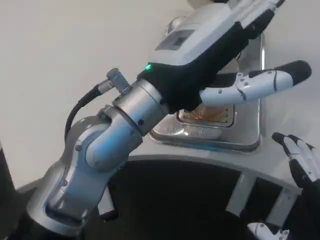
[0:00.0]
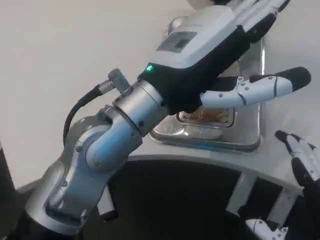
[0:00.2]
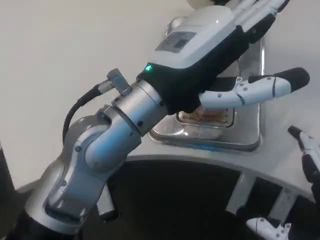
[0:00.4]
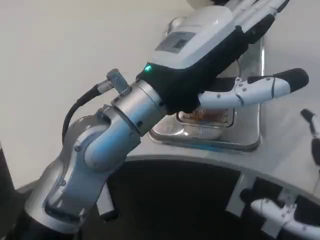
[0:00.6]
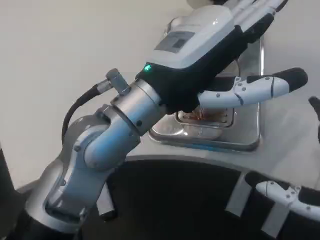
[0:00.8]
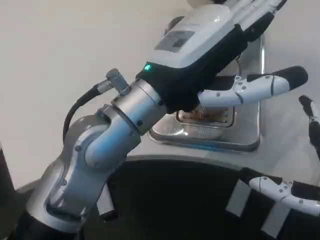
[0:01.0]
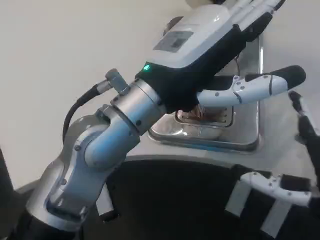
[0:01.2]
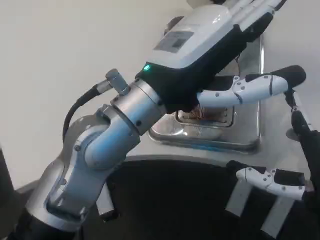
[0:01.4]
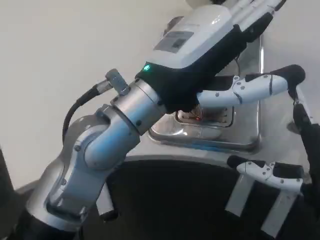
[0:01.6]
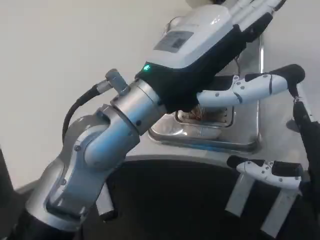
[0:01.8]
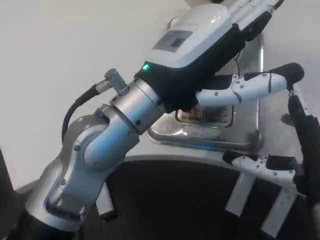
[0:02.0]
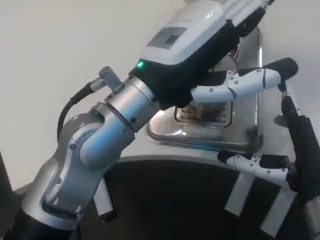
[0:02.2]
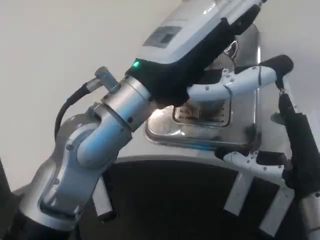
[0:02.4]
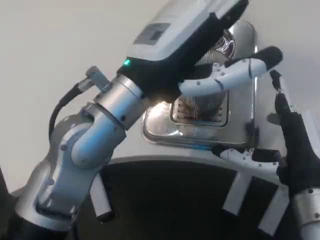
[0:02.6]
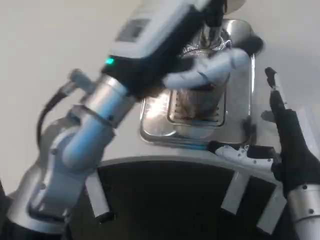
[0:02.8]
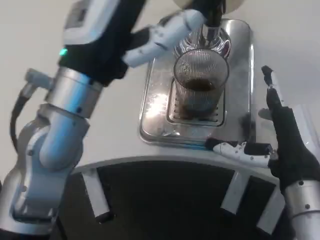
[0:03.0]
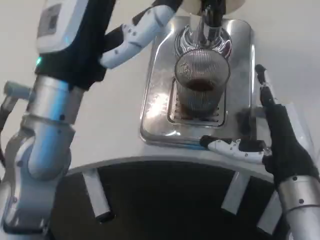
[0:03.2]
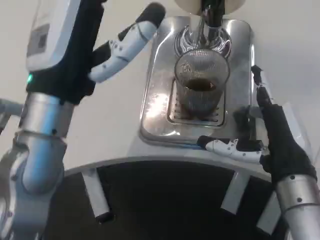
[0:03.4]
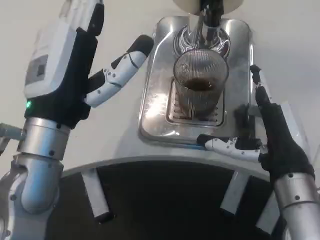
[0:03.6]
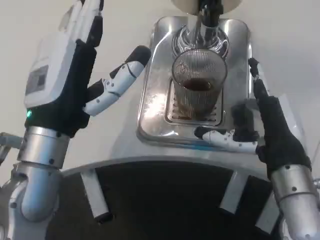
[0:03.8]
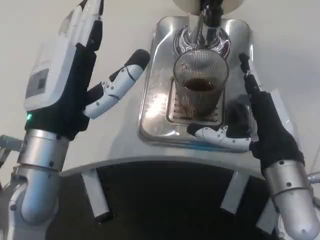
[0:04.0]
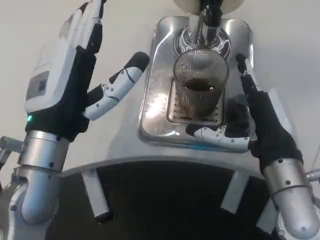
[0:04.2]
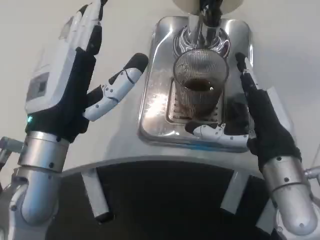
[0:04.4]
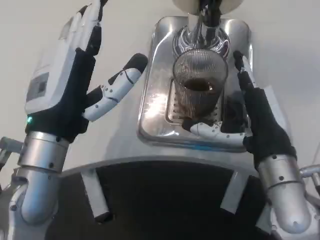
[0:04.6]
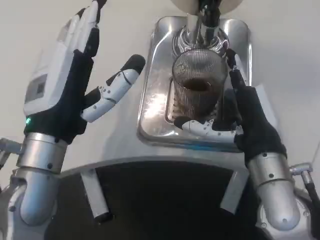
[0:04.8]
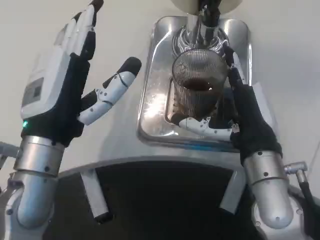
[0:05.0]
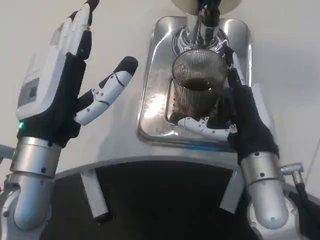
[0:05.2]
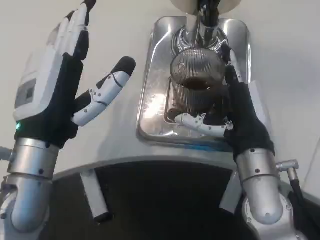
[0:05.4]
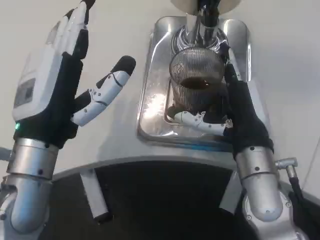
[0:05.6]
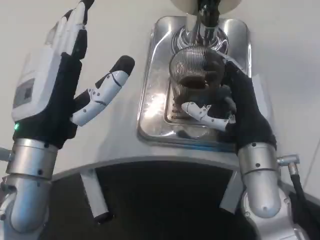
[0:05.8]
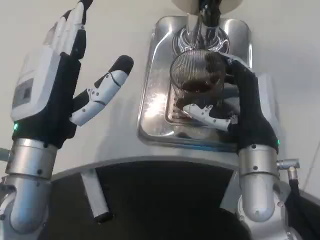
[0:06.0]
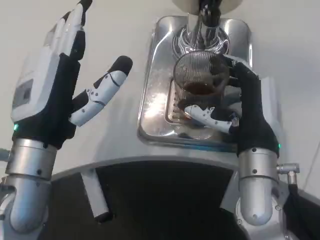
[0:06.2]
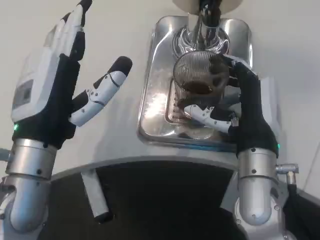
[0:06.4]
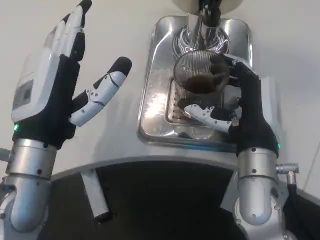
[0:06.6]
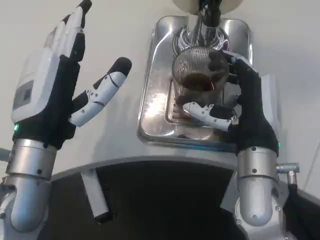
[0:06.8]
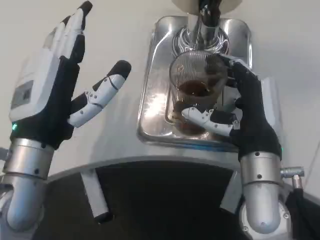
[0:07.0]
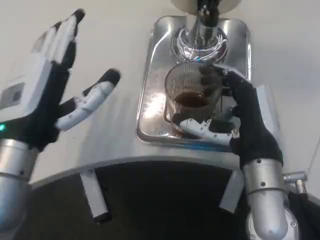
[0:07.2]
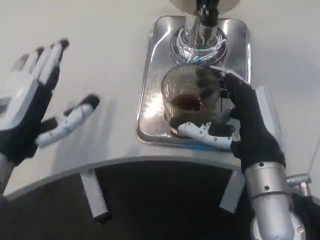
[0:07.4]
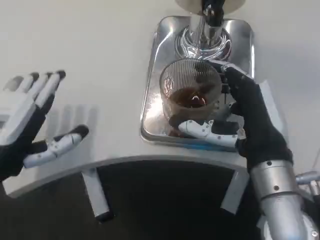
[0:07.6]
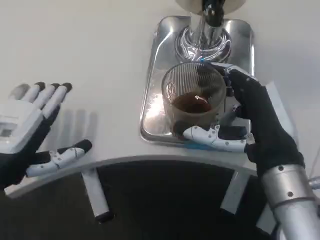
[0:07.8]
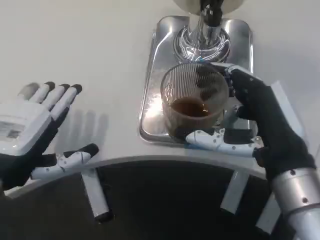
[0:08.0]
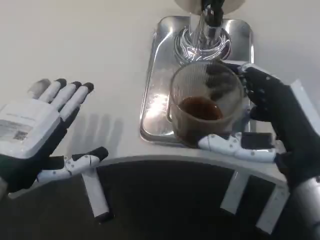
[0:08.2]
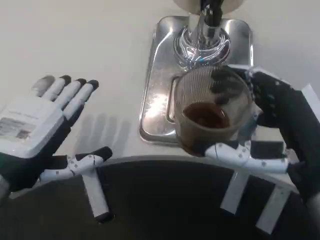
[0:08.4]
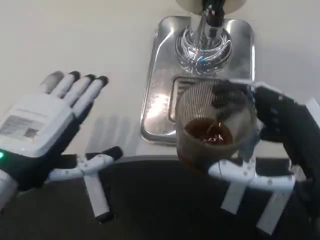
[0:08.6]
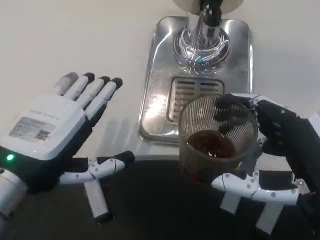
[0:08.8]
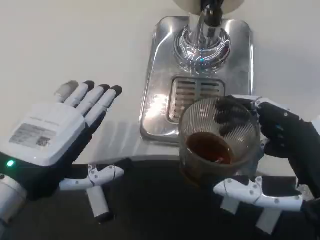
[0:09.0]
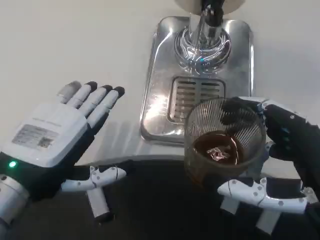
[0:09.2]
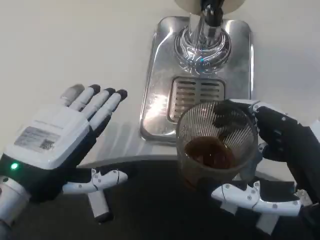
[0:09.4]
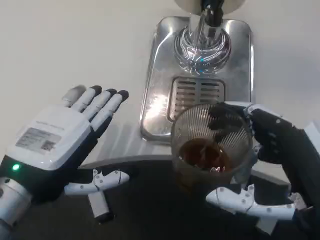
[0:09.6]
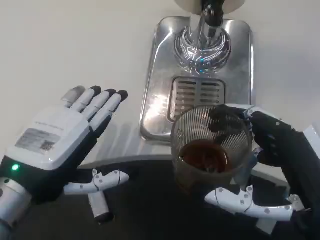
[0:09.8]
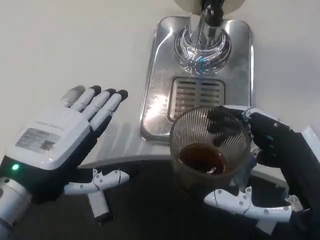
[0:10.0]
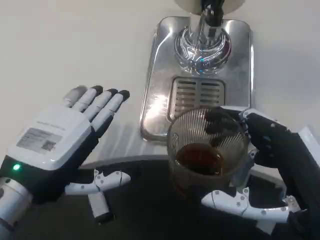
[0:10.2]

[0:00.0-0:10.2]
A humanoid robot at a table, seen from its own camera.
Task of the whole recording: Grasp the cup under the faucet to collect the drink, then remove the cup.
0:00.0 to 0:01.4: The right hand moves forward, some 10 cm.
0:01.4 to 0:03.0: The right hand heads forward, covering approximately 5 cm.
0:03.0 to 0:04.4: The left hand travels downward by about 5 cm.
0:07.2 to 0:08.8: The right hand shifts about 15 cm backward and to the right.

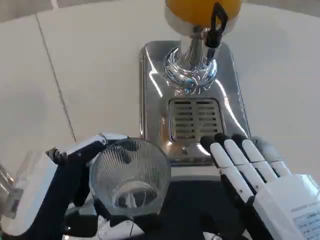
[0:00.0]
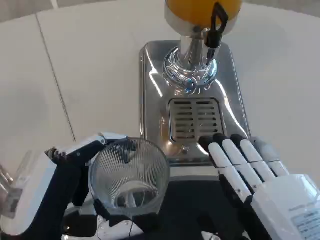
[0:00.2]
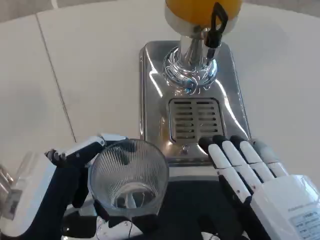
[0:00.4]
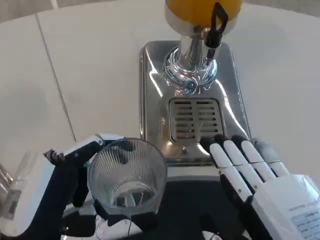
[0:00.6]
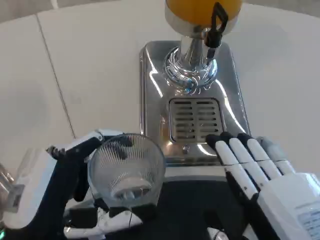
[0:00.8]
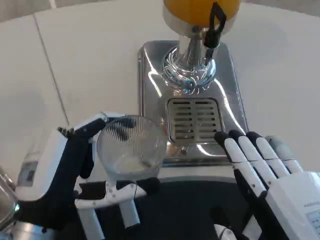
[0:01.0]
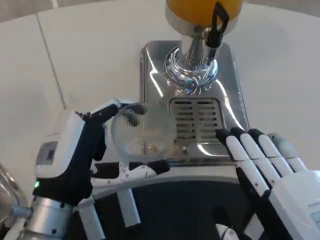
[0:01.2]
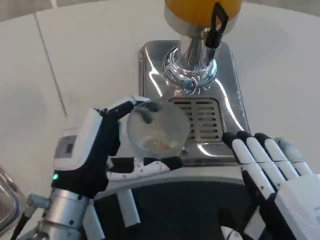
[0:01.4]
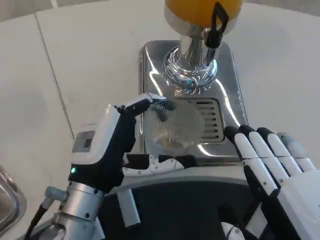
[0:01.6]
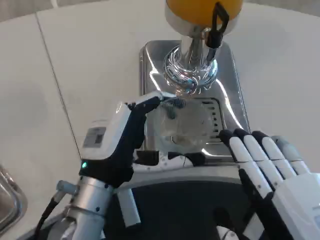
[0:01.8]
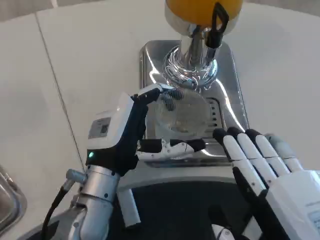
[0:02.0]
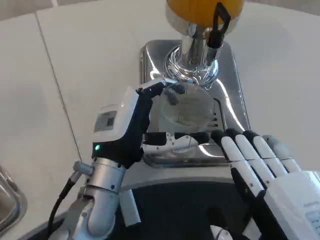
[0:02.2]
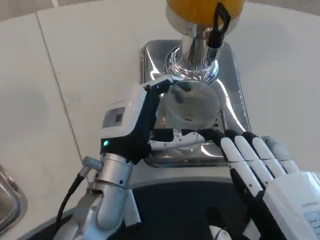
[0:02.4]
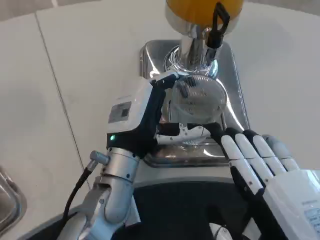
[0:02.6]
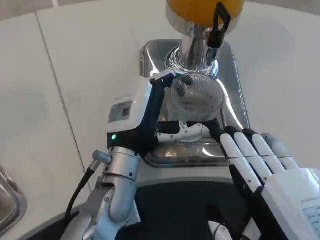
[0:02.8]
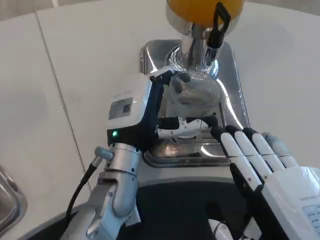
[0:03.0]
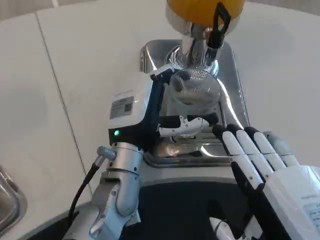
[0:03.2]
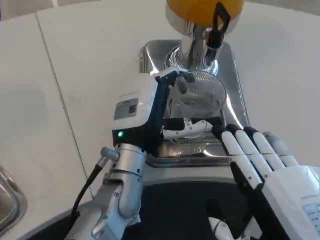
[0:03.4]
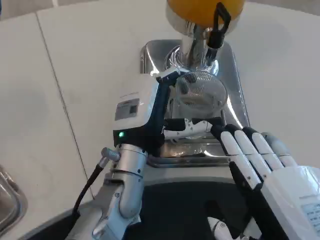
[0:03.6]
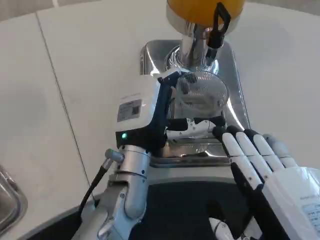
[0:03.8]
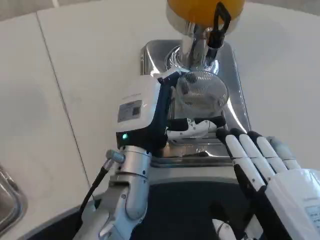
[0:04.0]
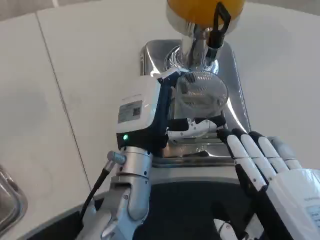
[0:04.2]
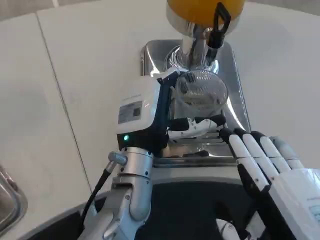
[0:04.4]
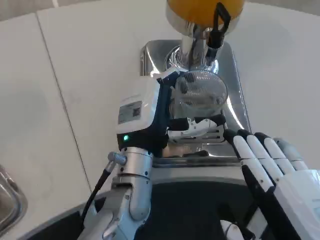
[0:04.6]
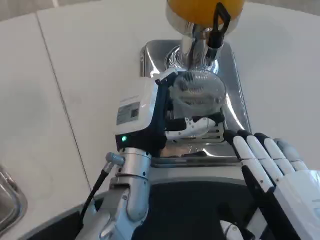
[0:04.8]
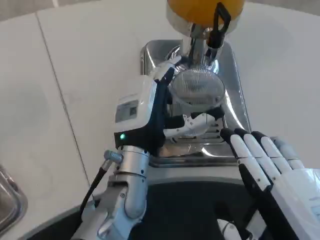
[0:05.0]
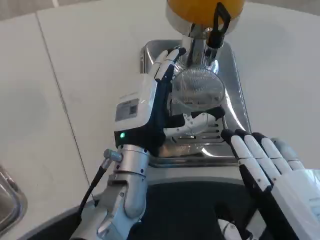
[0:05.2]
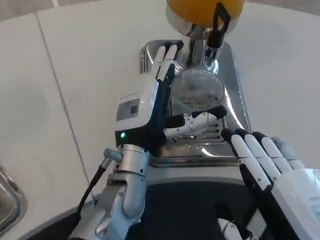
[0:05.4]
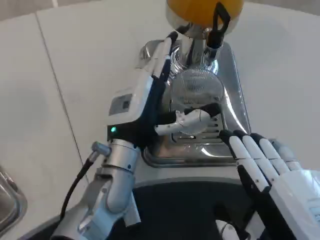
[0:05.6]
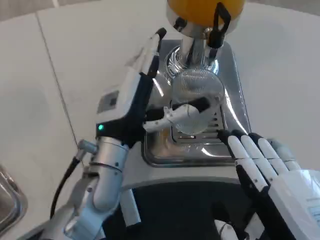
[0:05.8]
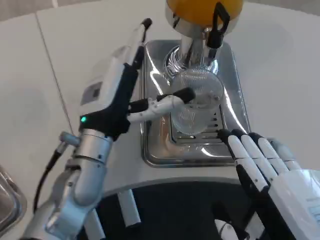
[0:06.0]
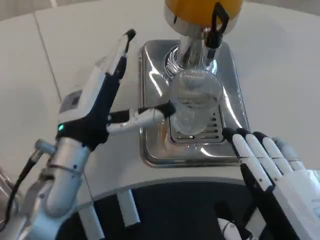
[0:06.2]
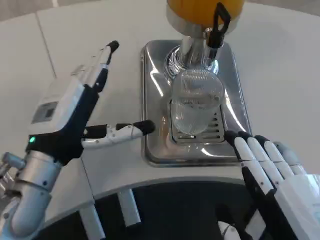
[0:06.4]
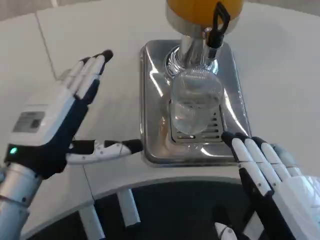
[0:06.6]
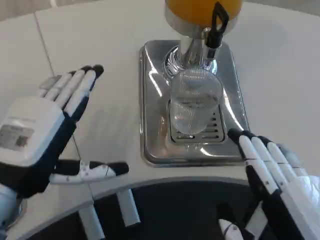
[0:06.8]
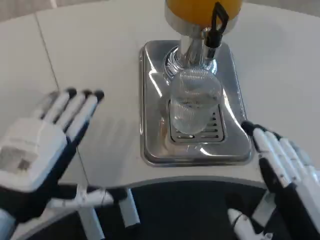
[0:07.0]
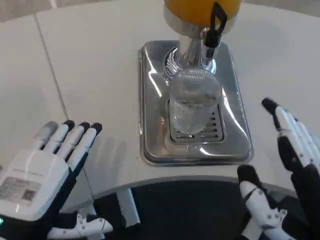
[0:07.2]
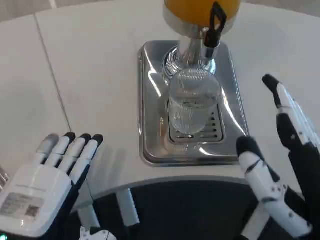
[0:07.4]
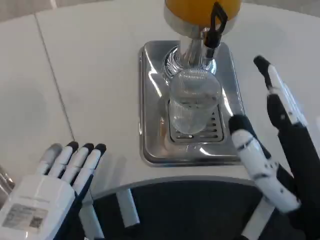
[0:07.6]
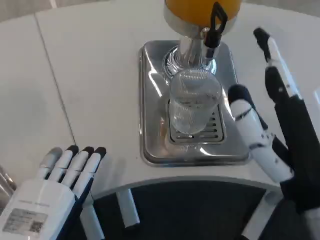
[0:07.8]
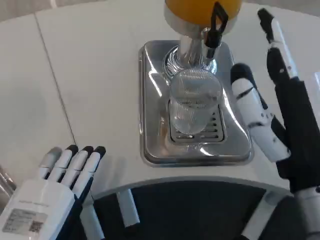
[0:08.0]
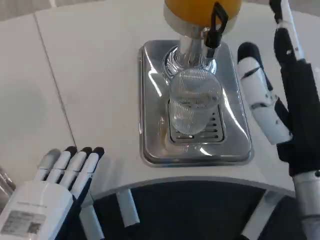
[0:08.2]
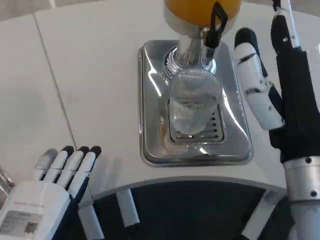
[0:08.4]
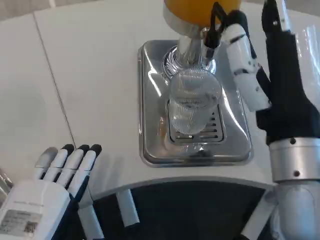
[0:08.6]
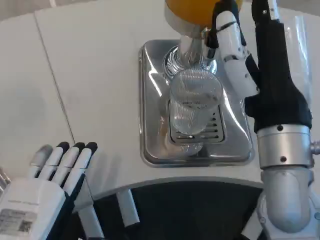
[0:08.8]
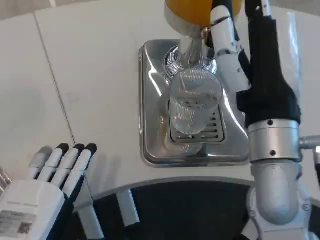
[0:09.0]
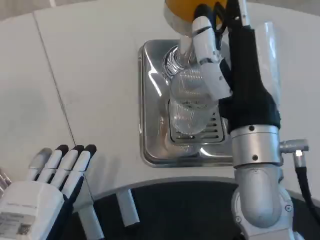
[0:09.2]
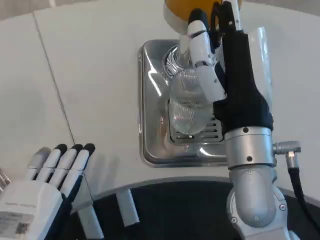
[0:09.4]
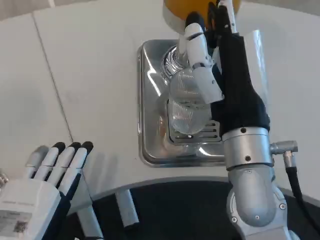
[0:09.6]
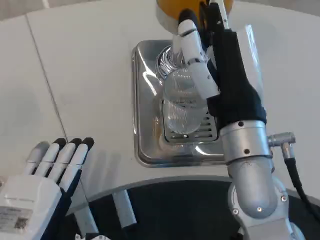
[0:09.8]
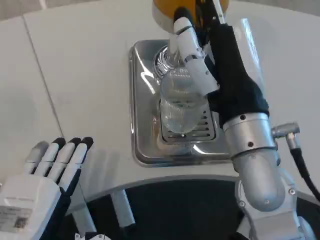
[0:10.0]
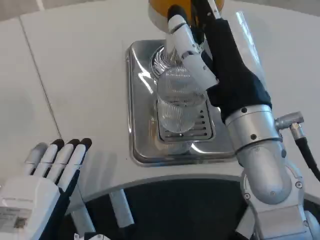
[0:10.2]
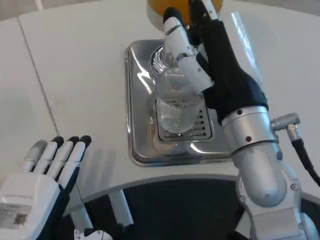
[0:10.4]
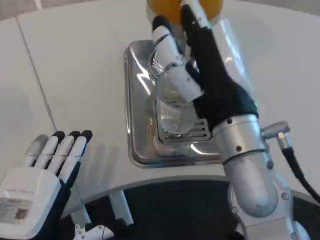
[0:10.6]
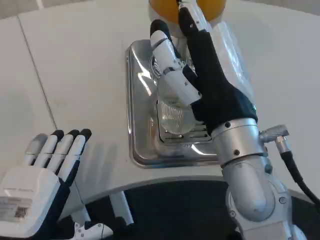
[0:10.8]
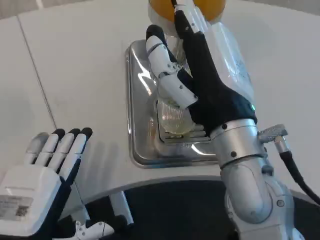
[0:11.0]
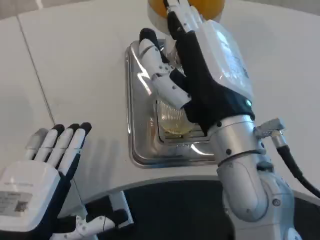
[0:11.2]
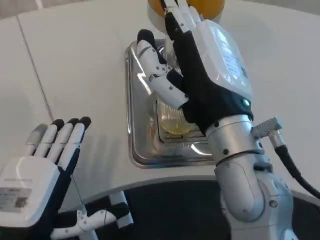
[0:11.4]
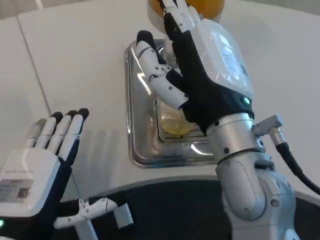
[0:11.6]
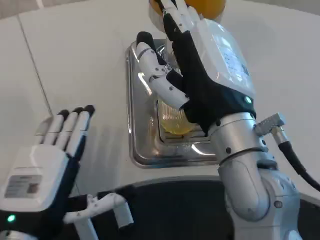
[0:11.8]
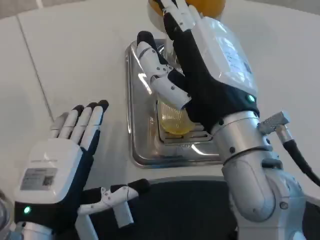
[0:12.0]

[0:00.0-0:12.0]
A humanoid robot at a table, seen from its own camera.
Task of the whole recording: Grasp the cup under the faucet to collect the drink, then remove the cup.
0:00.0 to 0:01.6: The left hand is displaced forward by some 10 cm.
0:01.6 to 0:03.0: The left hand is displaced forward and to the right by some 10 cm.
0:03.0 to 0:04.4: The hands stay close to where they were, moving slightly.
0:04.4 to 0:06.0: The left hand goes about 5 cm to the left.
0:06.0 to 0:07.6: The left hand travels backward and to the left by some 20 cm; the right hand changes place by roughly 5 cm.
0:07.6 to 0:09.0: The right hand heads forward and to the left, covering some 10 cm.
0:10.4 to 0:12.0: The left hand shifts by about 5 cm.
